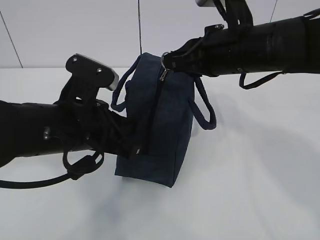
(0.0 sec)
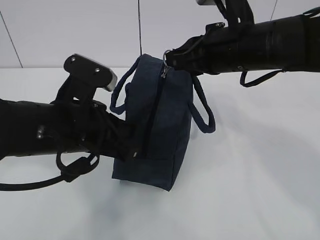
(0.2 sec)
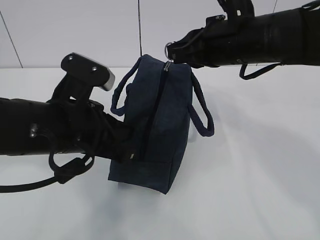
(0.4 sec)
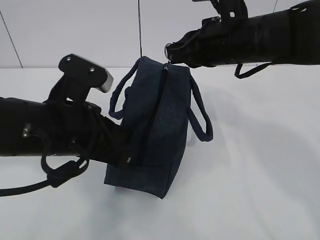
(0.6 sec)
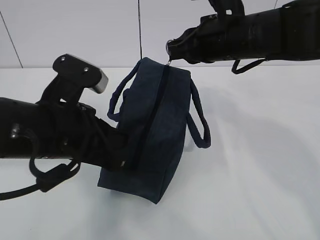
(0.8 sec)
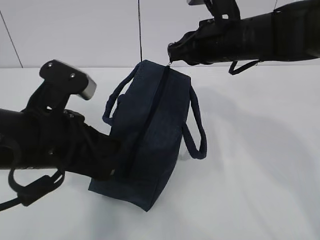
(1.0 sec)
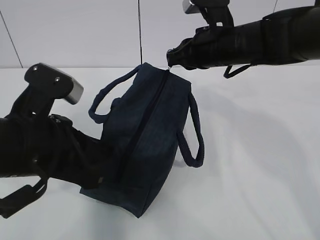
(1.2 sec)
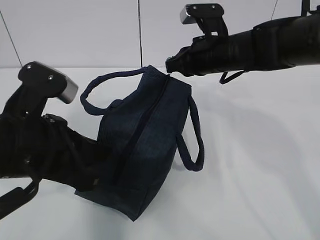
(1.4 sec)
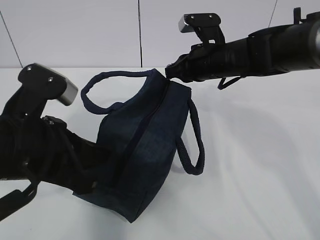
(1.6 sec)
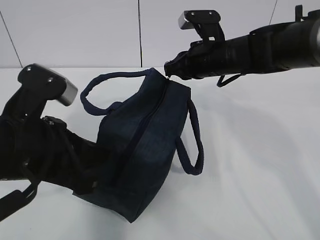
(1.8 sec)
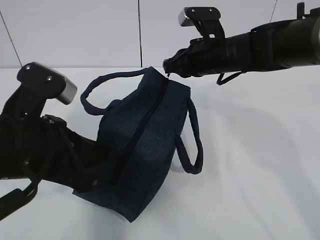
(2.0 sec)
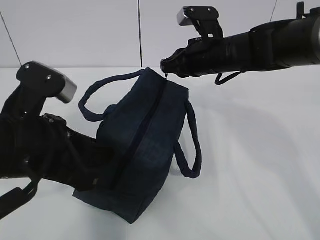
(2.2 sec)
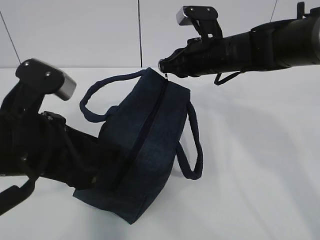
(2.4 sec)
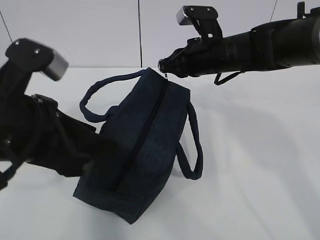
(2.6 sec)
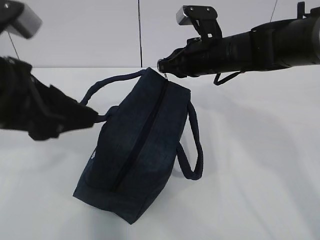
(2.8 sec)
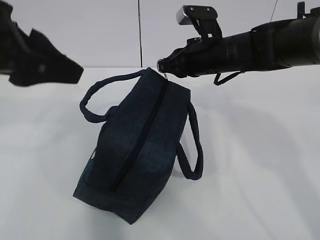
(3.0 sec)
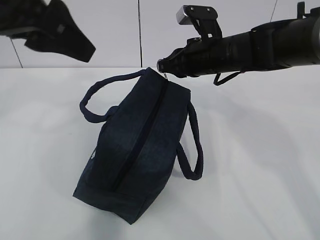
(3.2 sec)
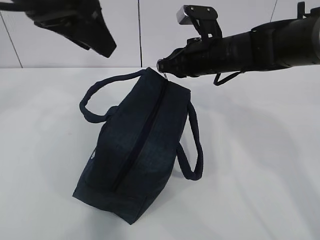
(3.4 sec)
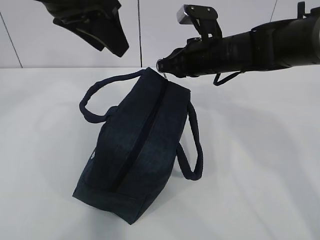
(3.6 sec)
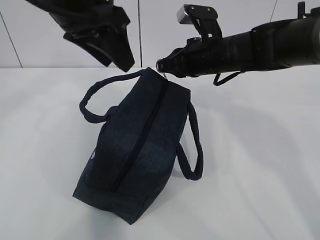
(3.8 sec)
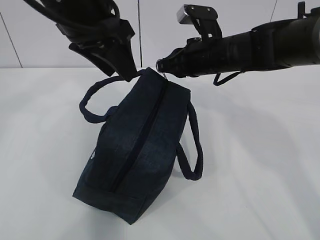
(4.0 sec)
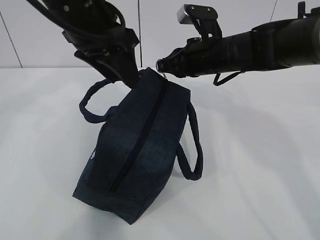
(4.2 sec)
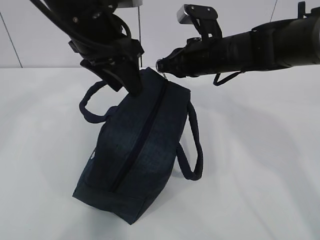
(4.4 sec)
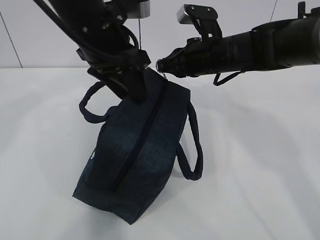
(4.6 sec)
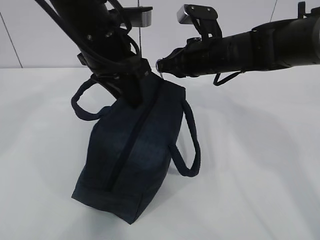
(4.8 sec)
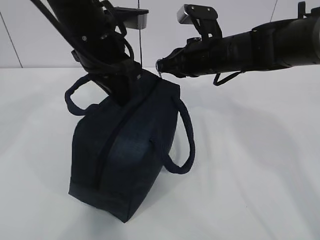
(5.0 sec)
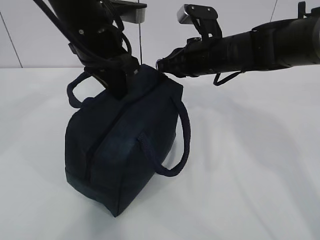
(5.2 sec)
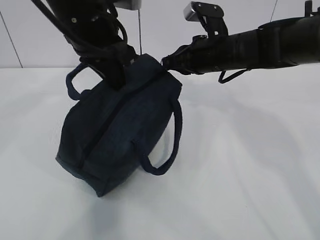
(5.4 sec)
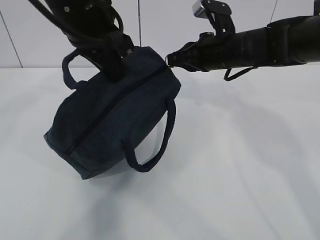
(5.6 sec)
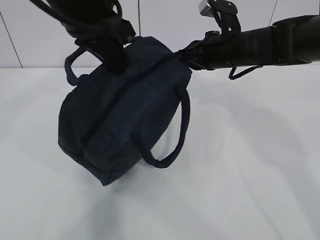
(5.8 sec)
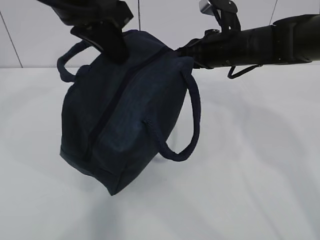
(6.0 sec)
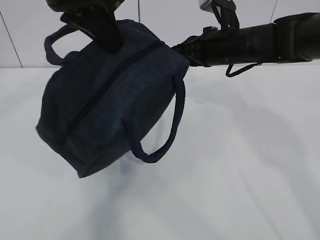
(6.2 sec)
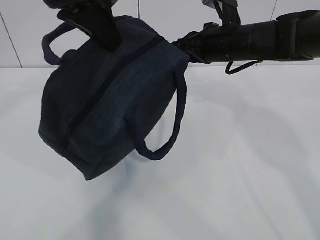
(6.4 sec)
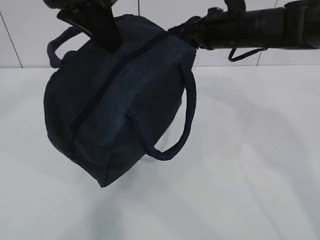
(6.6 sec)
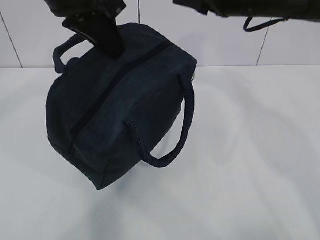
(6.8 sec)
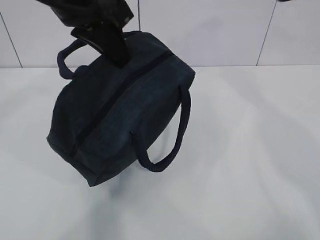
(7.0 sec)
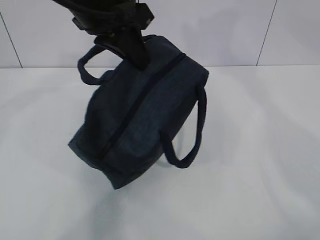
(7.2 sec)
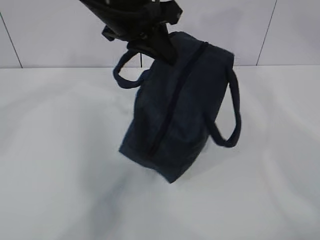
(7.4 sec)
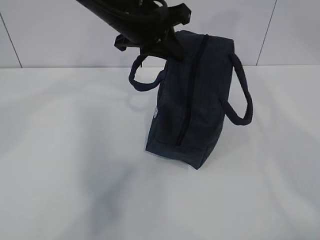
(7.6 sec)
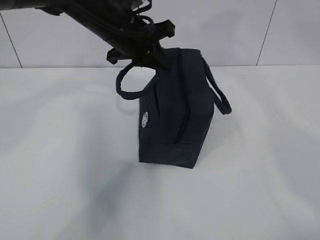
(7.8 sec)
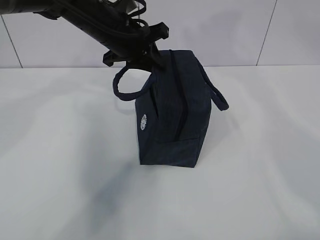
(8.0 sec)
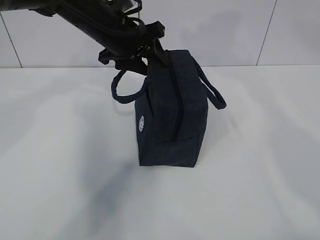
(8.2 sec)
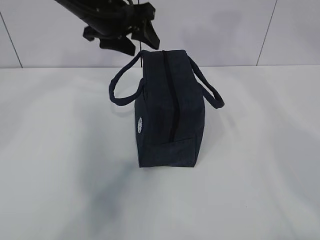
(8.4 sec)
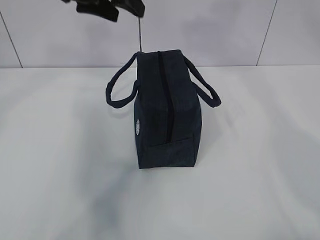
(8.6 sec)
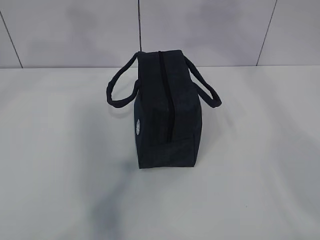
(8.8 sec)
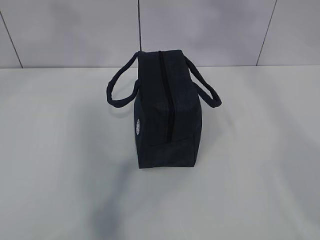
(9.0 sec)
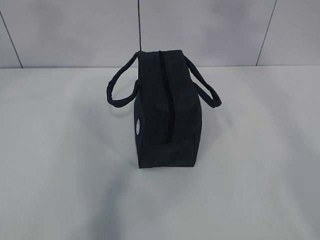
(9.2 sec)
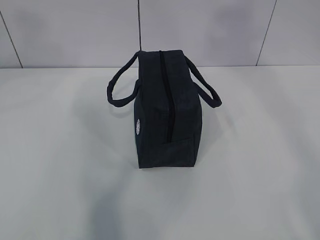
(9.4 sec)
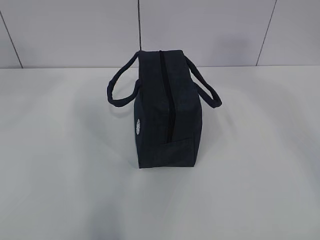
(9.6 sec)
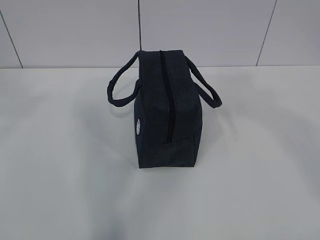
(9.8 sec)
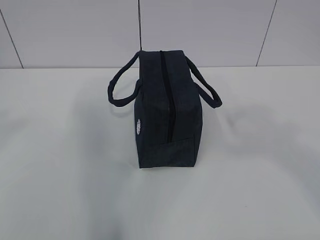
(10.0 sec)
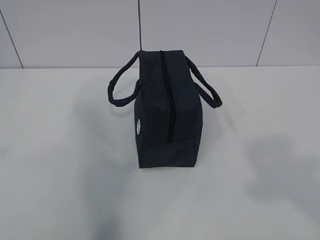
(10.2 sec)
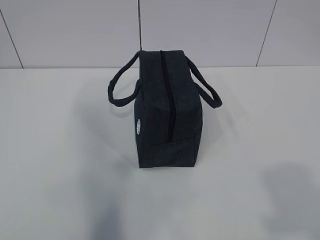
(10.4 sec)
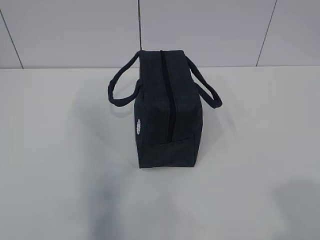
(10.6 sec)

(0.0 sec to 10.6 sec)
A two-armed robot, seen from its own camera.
0.0 sec - 1.6 sec: The right gripper is displaced forward and downward by roughly 10 cm. The left gripper goes approximately 5 cm backward.
1.6 sec - 3.0 sec: The left gripper moves upward, roughly 15 cm, and opens up.
3.0 sec - 4.6 sec: The left gripper is displaced forward, to the right and downward by about 15 cm.
4.6 sec - 6.0 sec: The left gripper goes roughly 5 cm upward, and closes its fingers.
6.0 sec - 7.6 sec: The right gripper goes some 20 cm upward and to the right, and opens its fingers. The left gripper is displaced downward, forward and to the right by about 10 cm.
7.6 sec - 9.0 sec: The right gripper heads upward and backward, covering some 20 cm; the left gripper goes approximately 20 cm upward, to the left and backward, and opens its fingers.
9.0 sec - 10.6 sec: The left gripper heads backward and to the left, covering about 35 cm, while the right gripper goes some 40 cm backward and downward.

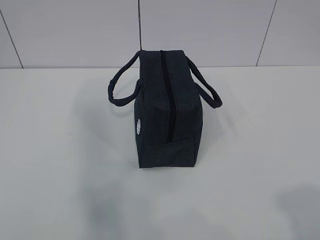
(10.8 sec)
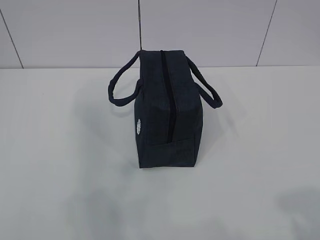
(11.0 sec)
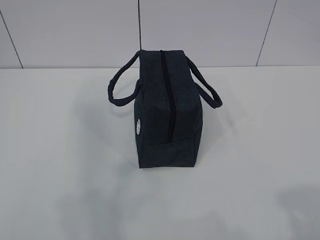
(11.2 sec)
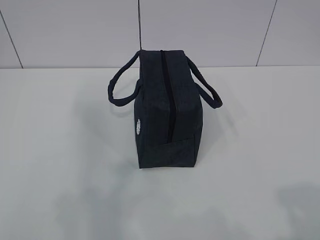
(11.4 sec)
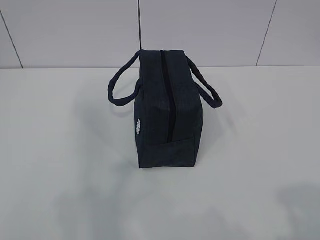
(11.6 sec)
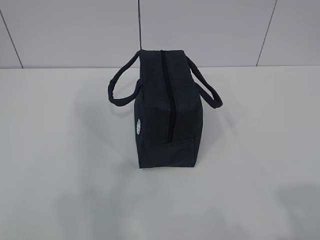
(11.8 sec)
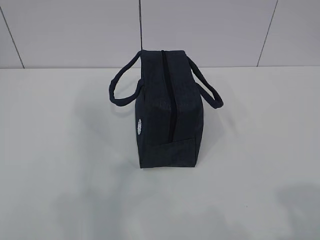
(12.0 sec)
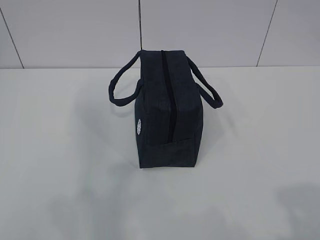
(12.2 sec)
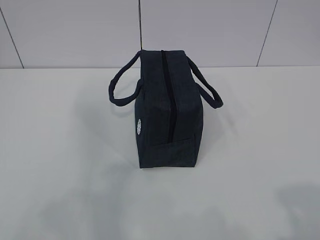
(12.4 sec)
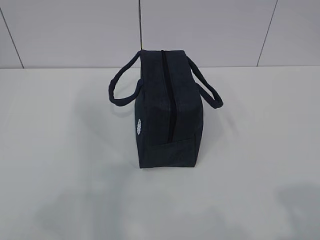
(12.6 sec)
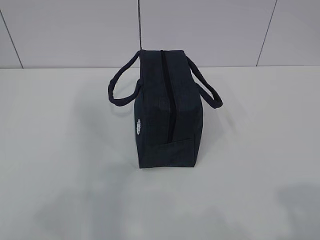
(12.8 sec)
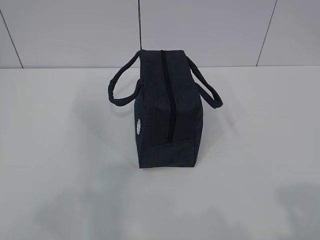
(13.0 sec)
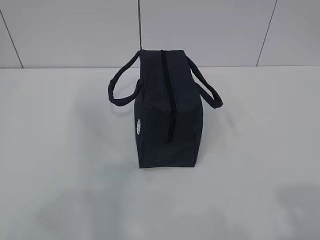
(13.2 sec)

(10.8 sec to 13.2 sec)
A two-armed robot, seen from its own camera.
10.8 sec - 12.0 sec: The grippers make only small movements.
